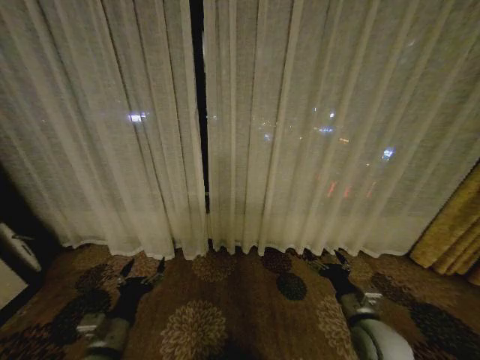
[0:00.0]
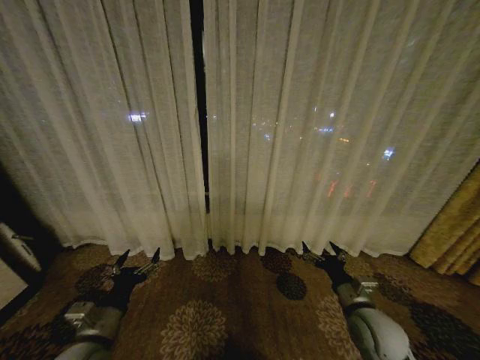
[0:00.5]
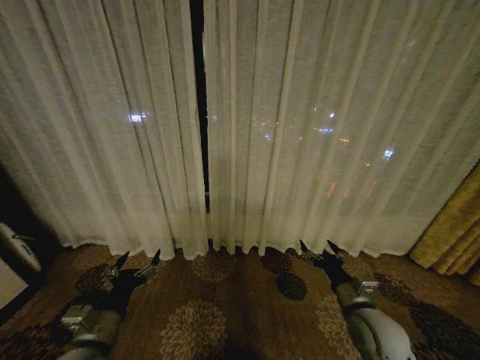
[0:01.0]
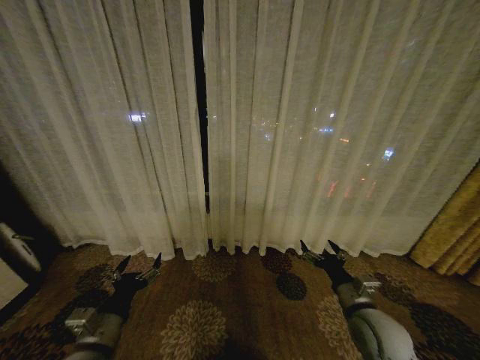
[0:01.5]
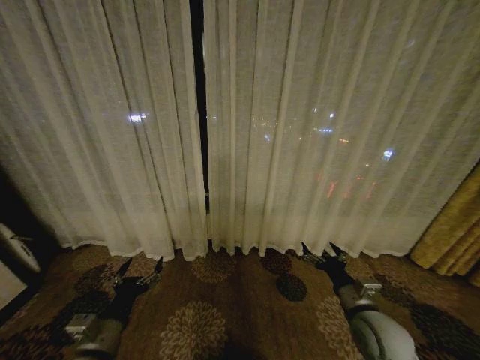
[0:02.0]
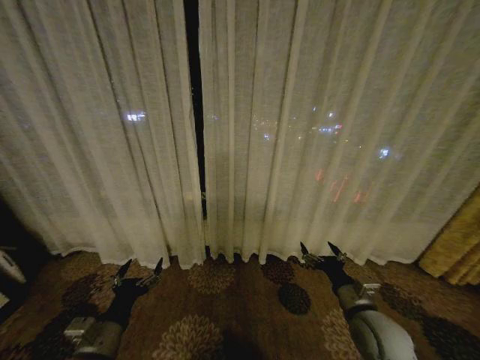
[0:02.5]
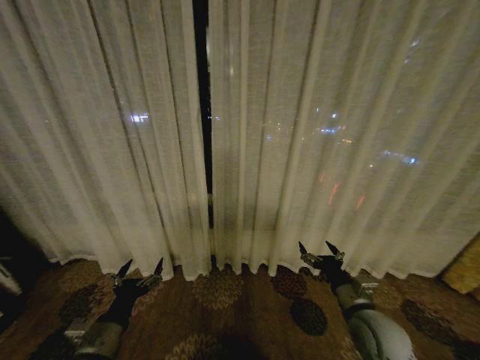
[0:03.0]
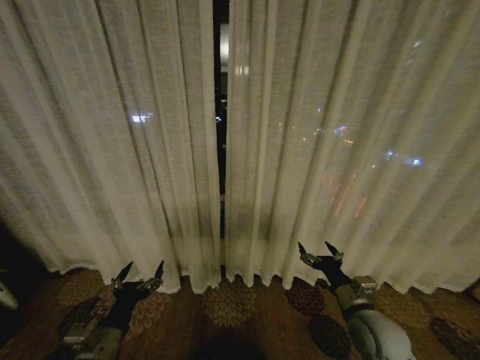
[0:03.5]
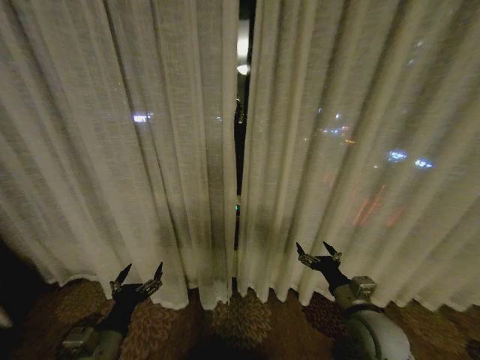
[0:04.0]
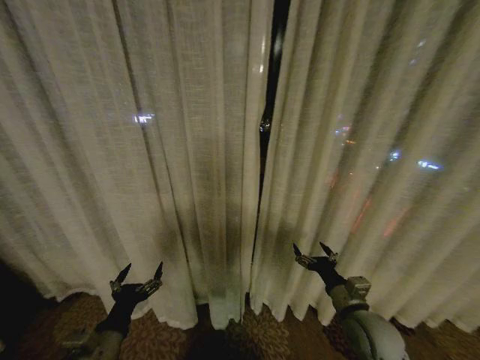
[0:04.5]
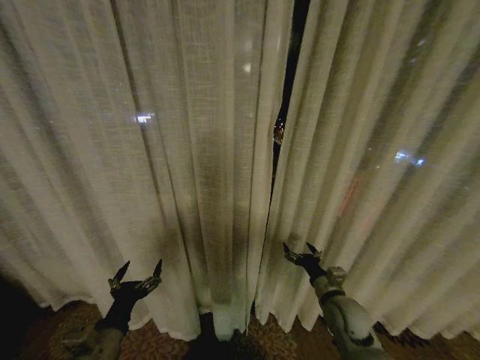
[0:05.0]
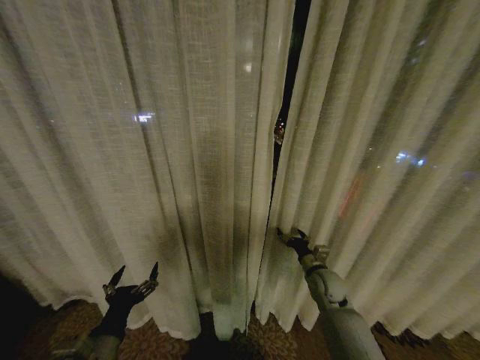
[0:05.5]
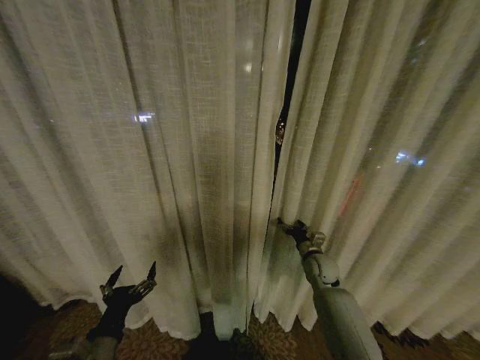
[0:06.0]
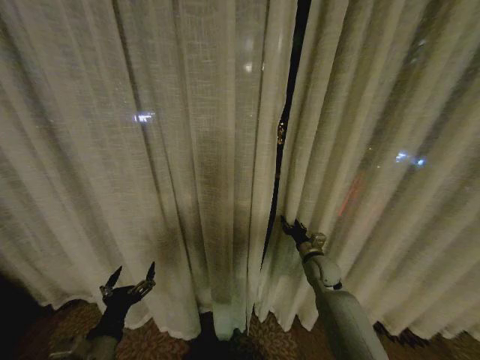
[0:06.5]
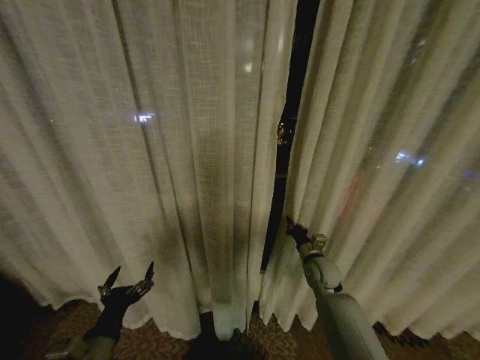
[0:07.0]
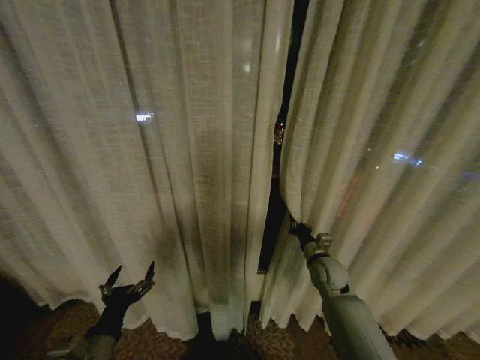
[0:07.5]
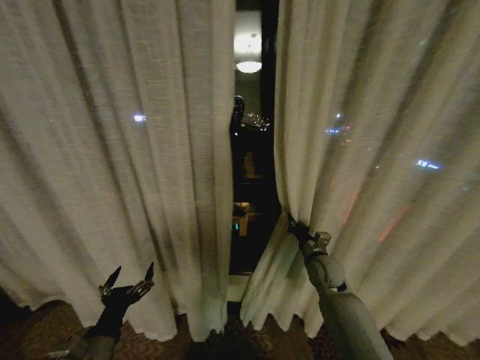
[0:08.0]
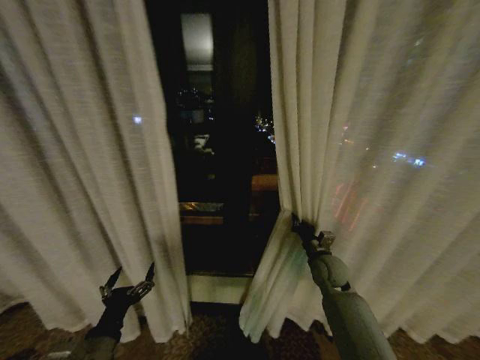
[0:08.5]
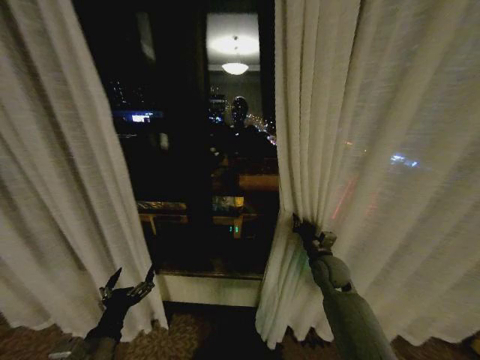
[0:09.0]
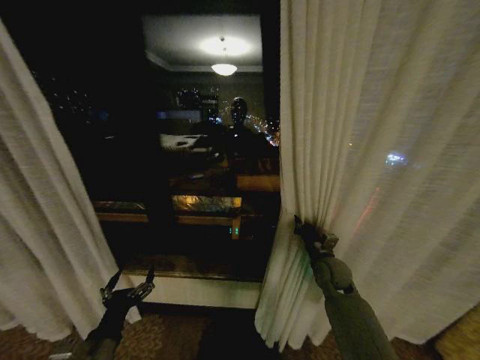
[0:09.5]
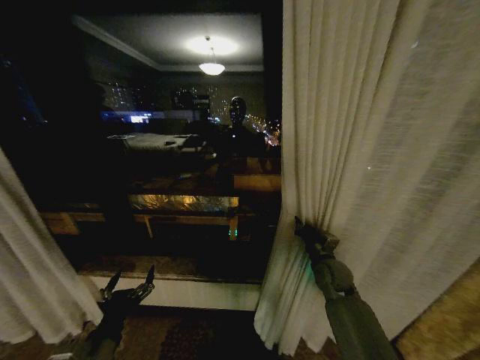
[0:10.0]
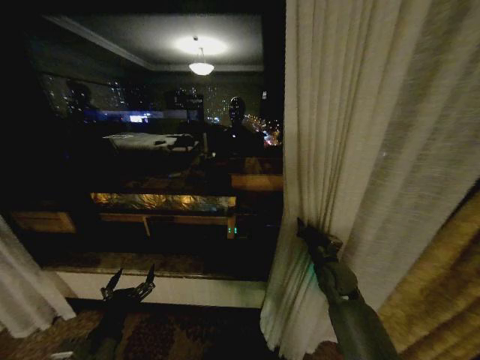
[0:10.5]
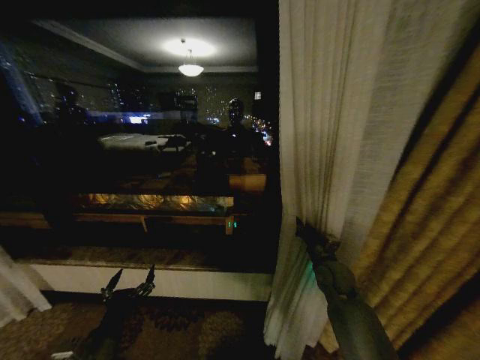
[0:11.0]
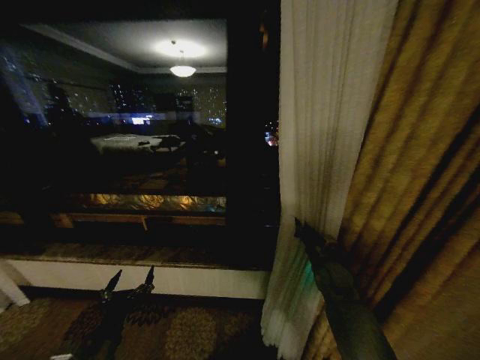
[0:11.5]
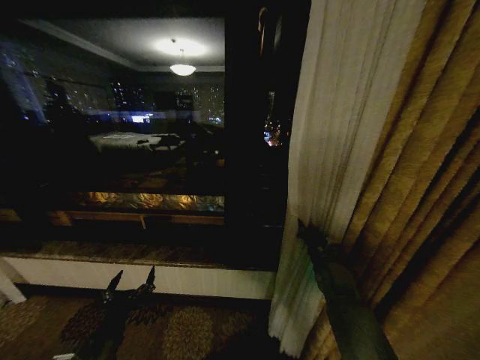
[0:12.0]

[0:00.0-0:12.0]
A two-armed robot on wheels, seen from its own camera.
Task of the whole recording: Open the curtains by pulling them apart, changing their state from closed to fully open.
0:04.0 to 0:06.0: The right gripper is displaced forward by about 20 cm.
0:06.0 to 0:08.0: The right gripper closes up.

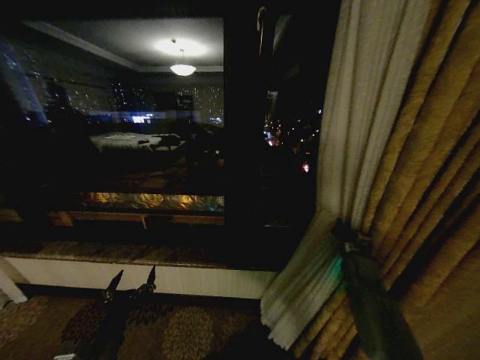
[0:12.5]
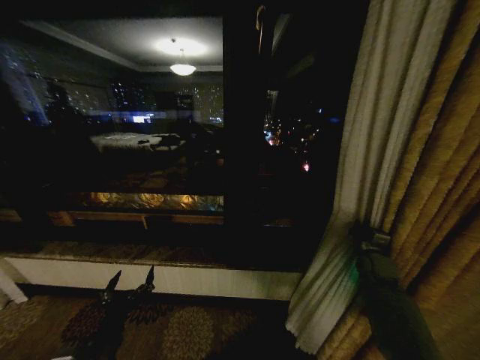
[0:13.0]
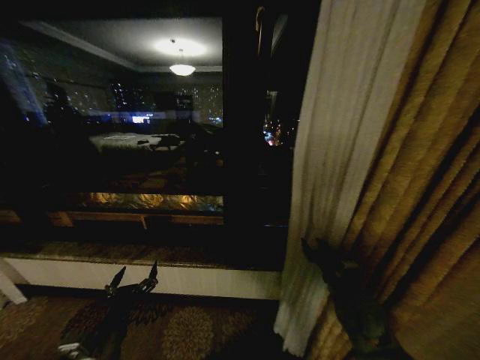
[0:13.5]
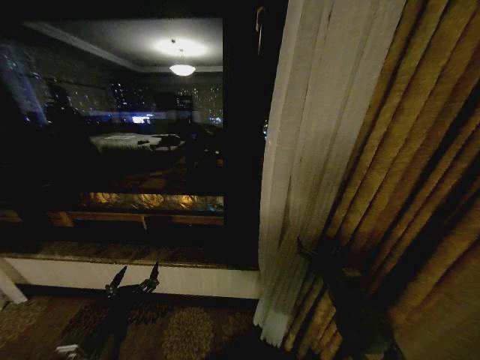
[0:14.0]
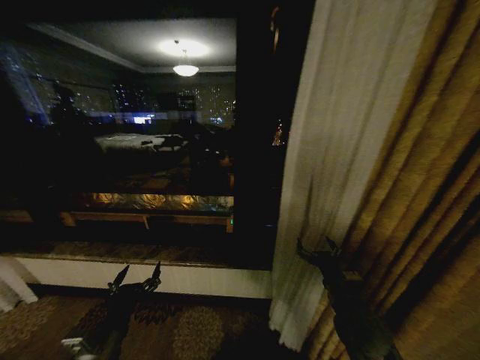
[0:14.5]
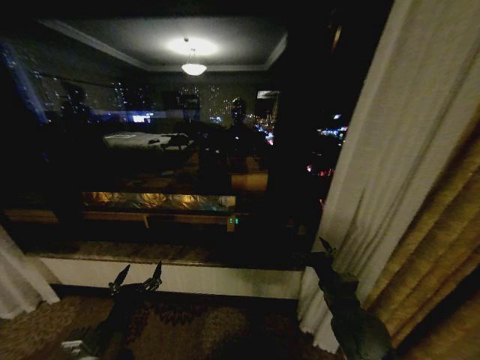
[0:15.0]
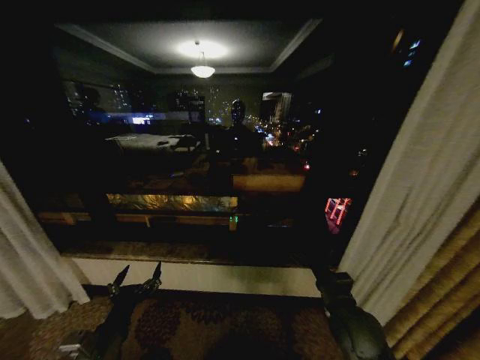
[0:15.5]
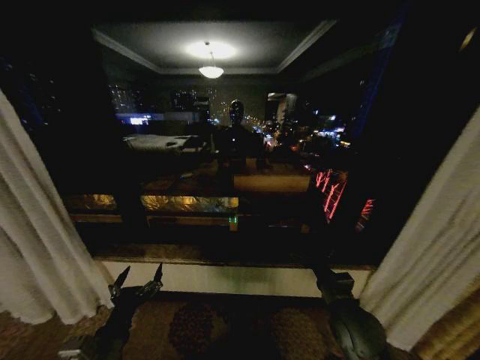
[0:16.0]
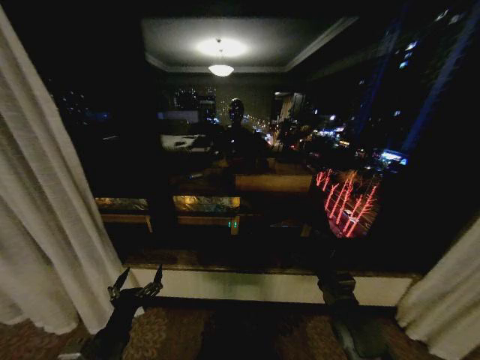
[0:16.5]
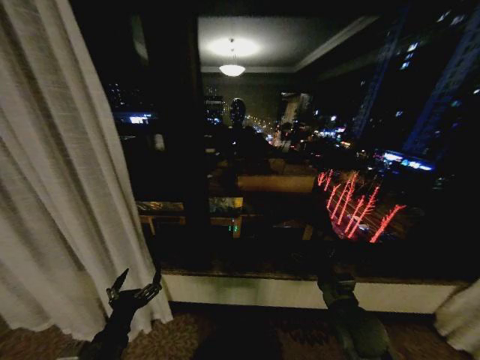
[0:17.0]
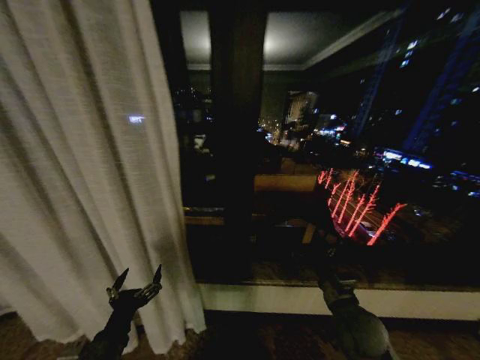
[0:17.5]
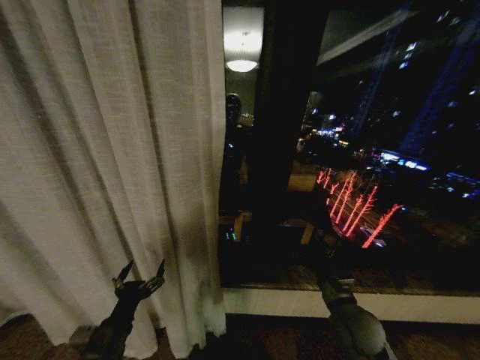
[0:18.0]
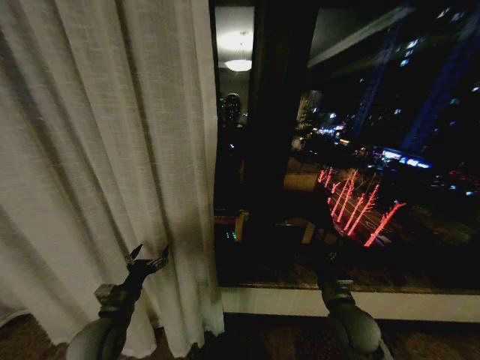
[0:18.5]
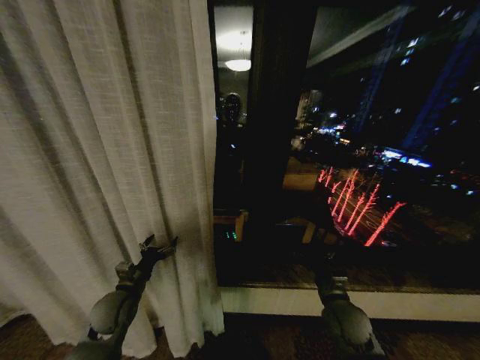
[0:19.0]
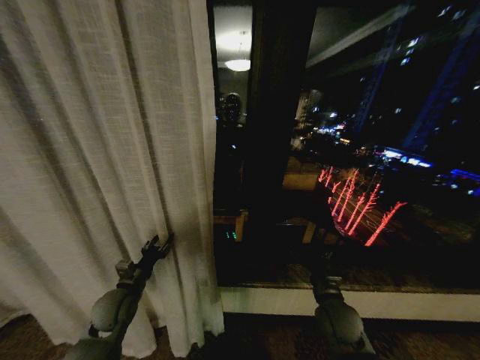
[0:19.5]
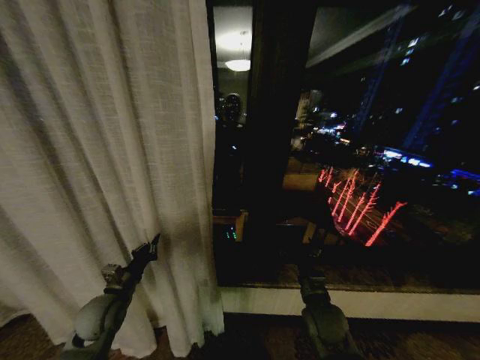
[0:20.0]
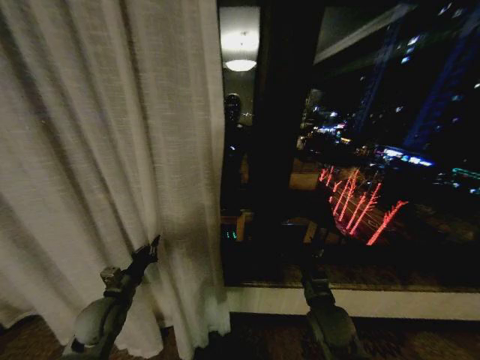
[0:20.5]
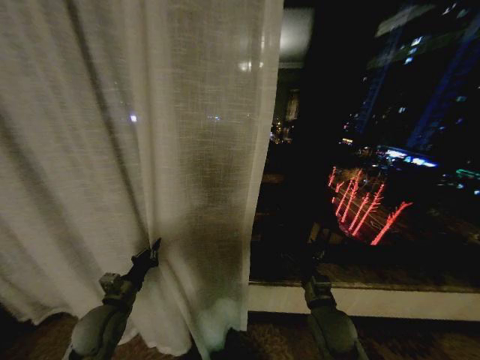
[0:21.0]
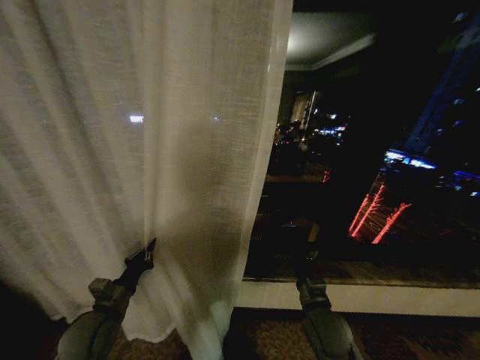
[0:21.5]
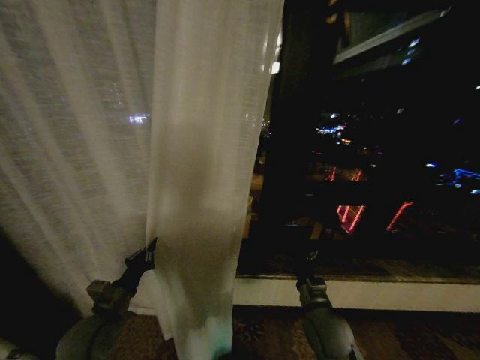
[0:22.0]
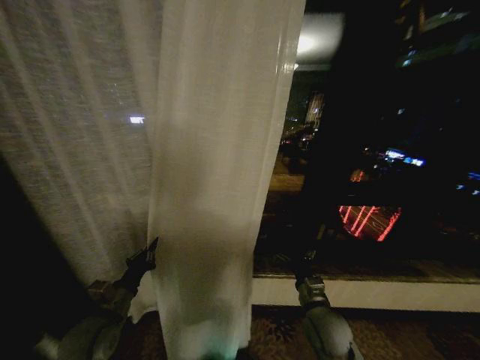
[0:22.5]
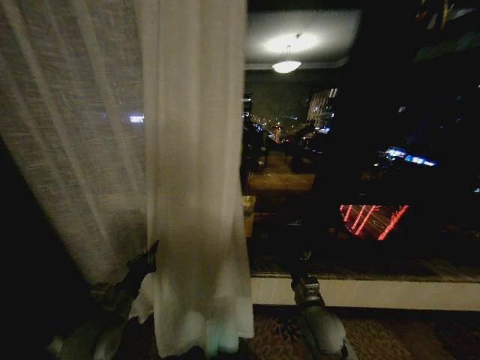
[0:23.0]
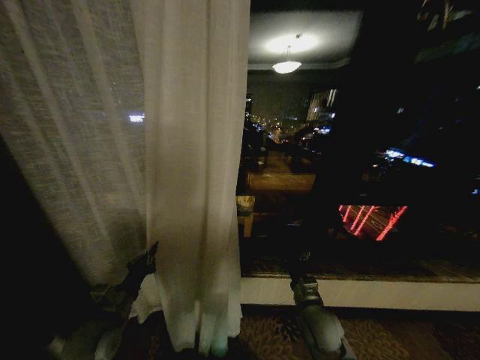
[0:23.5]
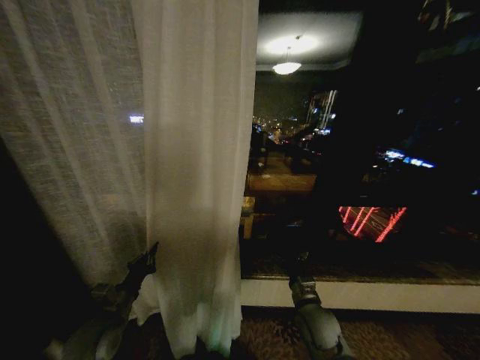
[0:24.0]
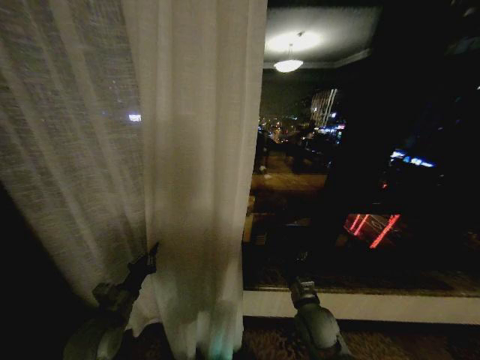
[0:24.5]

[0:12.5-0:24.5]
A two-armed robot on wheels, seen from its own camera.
Task of the whole recording: Open the curtains by pulling them apart, changing their state from closed to fully open.
0:12.5 to 0:14.5: The right gripper is displaced backward and to the left by roughly 20 cm, and opens up.
0:16.5 to 0:18.5: The left gripper heads forward, covering about 10 cm.
0:18.5 to 0:20.5: The right gripper moves roughly 5 cm. The left gripper shifts by roughly 5 cm, and closes up.
0:20.5 to 0:22.5: The left gripper shifts by about 5 cm.
0:22.5 to 0:24.5: There are only small adjustments of the grippers.

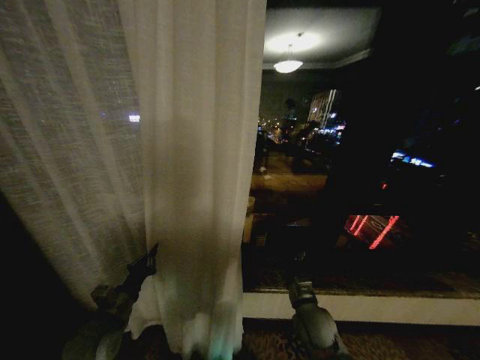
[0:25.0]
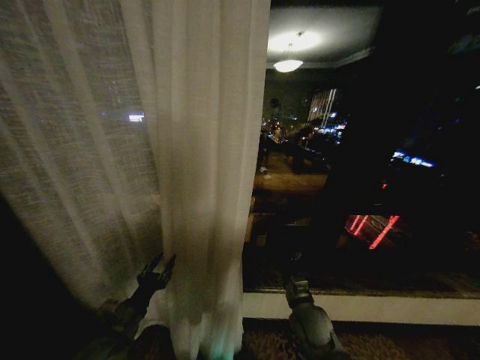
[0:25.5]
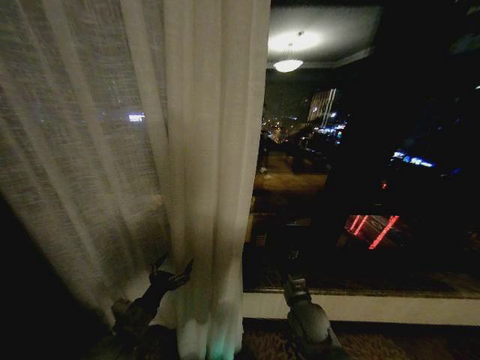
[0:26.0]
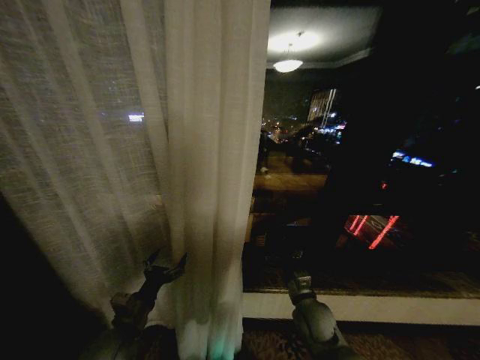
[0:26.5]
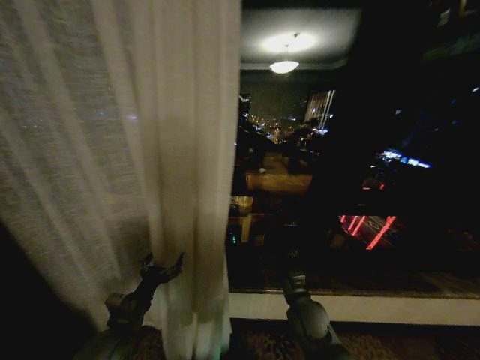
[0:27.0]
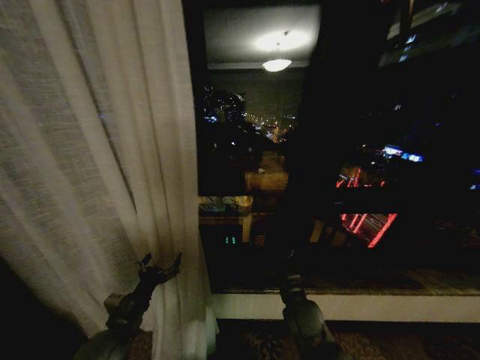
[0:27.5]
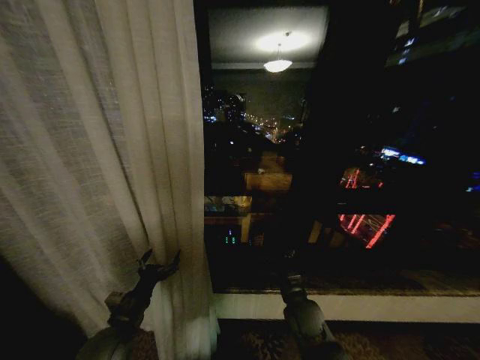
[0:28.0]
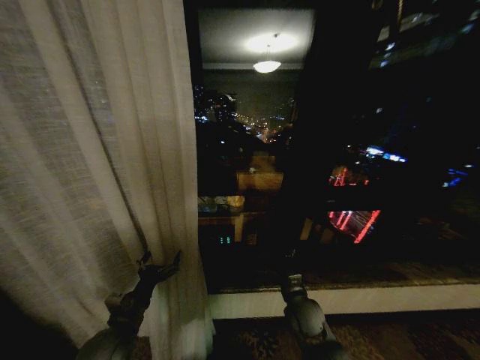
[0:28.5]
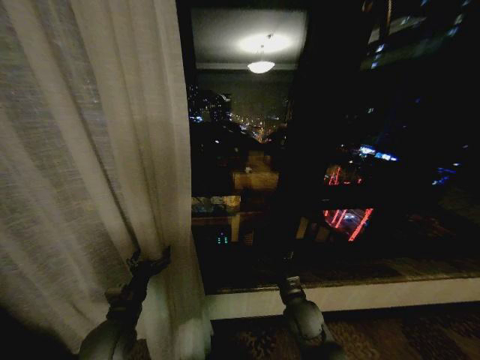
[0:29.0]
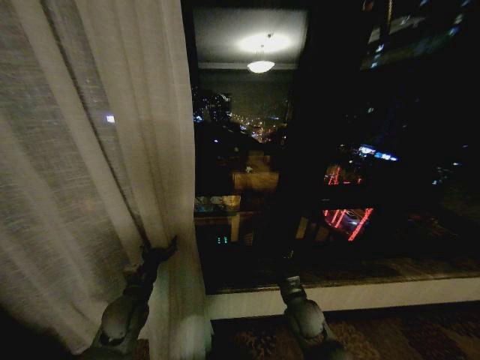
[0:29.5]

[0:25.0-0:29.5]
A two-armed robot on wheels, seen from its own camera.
Task of the whole recording: Open the curtains by pulling them apart, changing their state from closed to fully open.
0:25.0 to 0:27.0: The left gripper opens.
0:27.0 to 0:29.5: The left gripper travels forward by approximately 10 cm.
